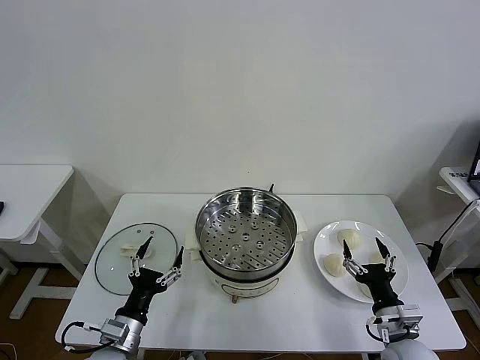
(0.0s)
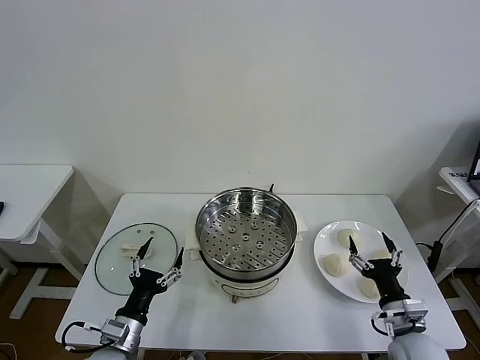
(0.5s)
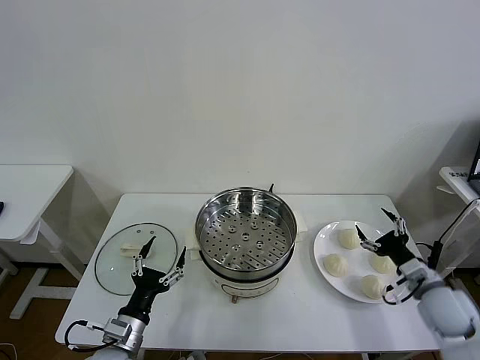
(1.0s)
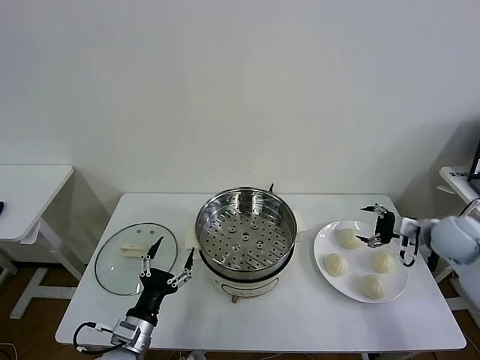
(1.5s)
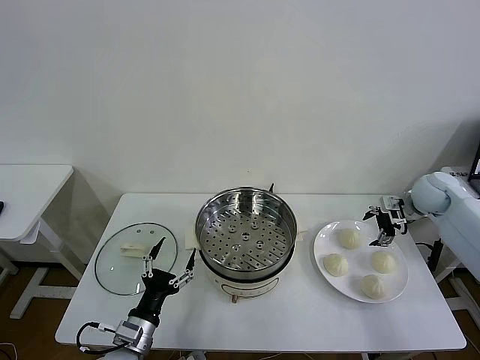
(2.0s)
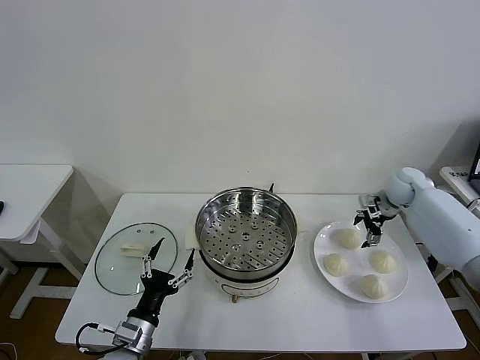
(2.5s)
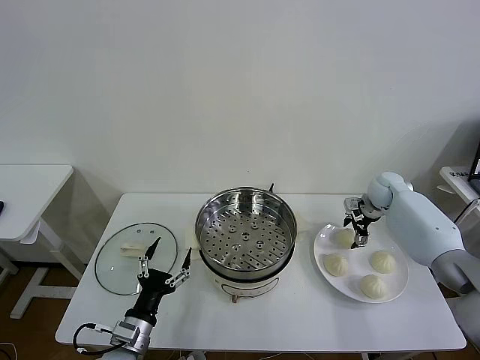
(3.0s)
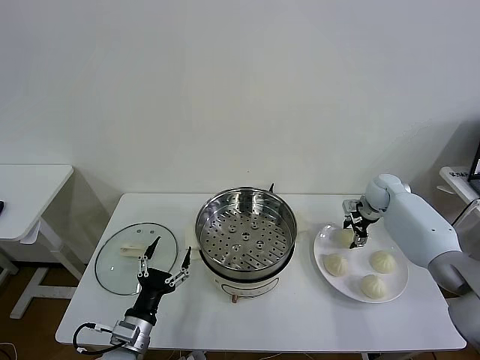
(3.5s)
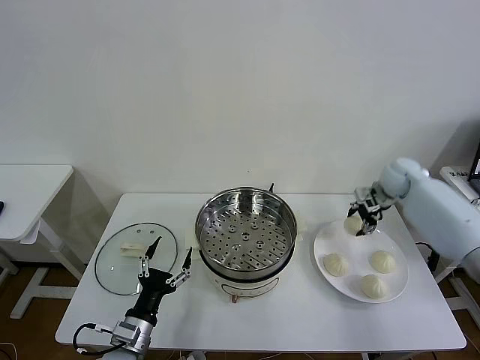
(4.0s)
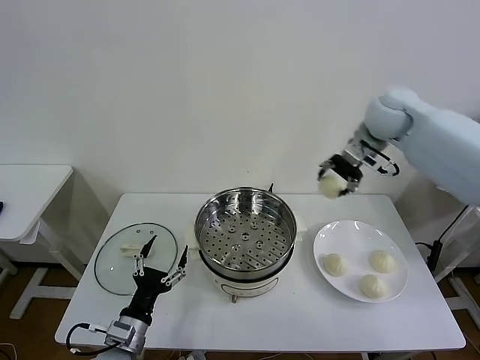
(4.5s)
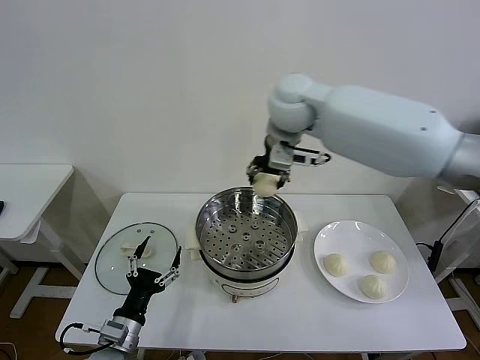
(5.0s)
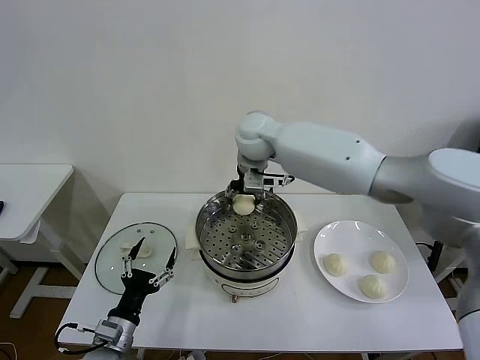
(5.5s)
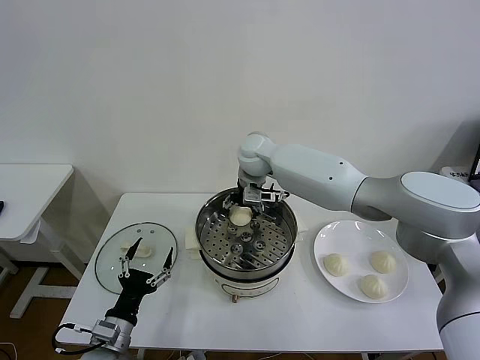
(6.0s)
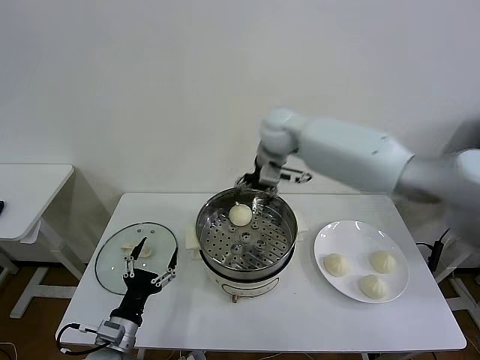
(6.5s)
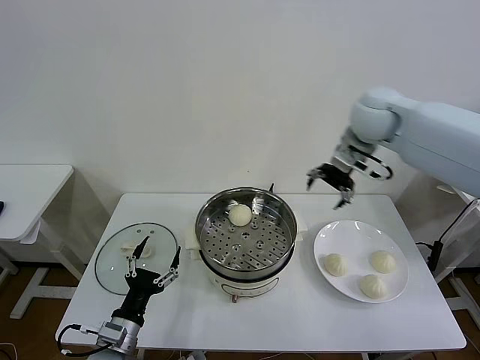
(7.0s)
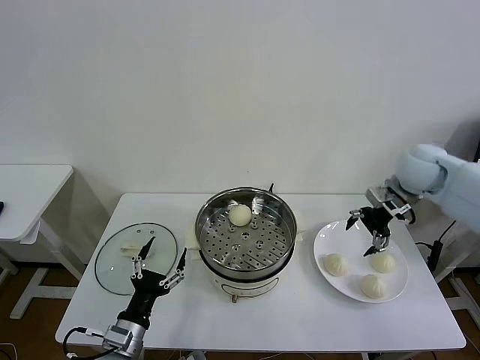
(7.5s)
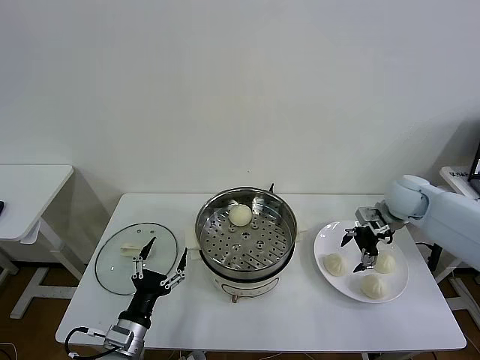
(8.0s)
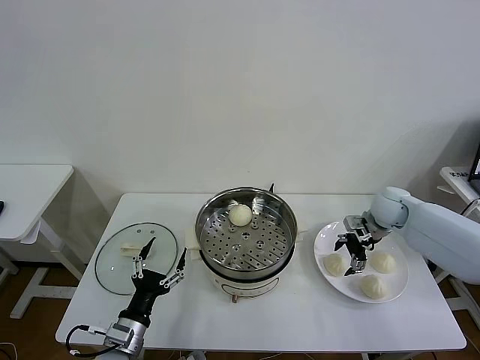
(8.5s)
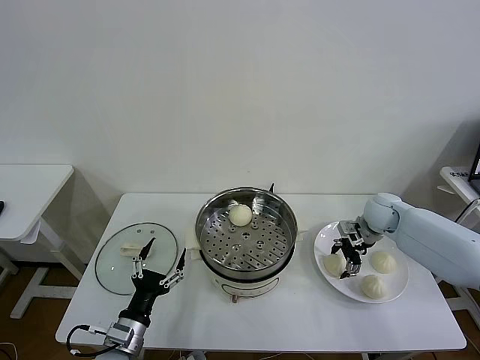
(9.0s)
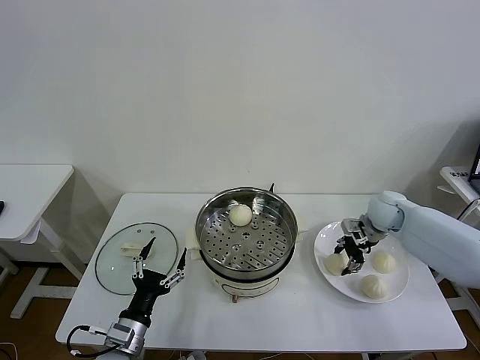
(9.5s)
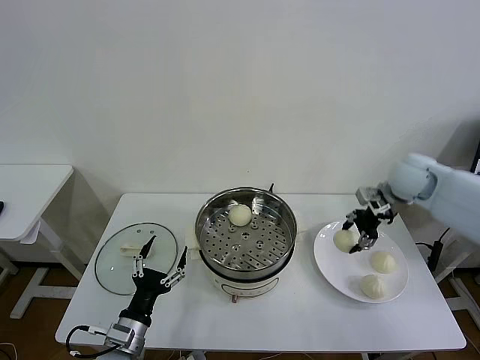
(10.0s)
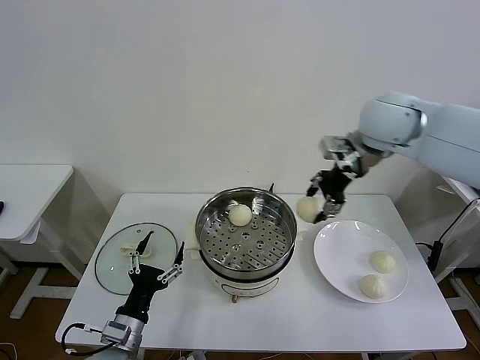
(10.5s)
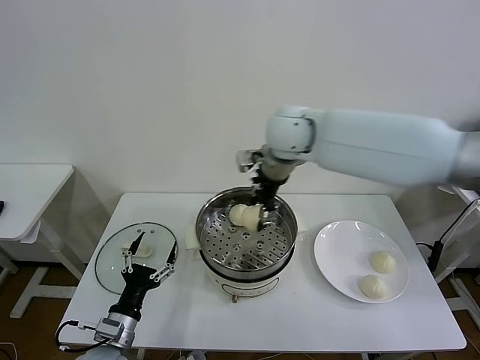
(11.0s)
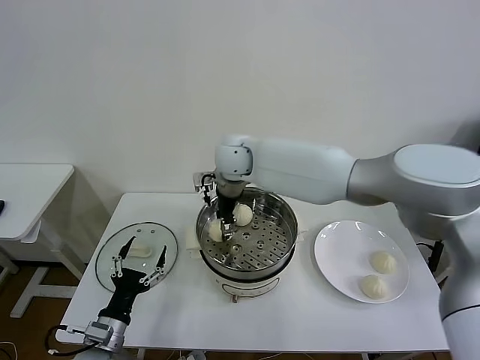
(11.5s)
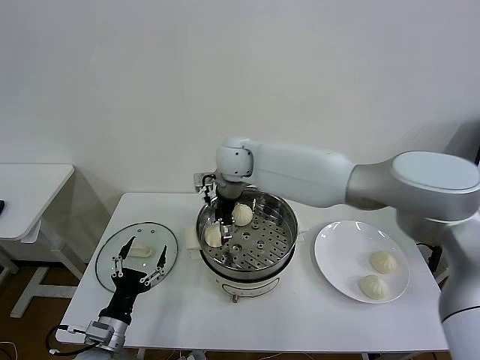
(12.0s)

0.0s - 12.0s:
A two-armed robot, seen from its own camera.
Task of the whole recording: take steamed baozi put them in steamer then cover it.
Step, 0.0s - 3.5s: Grasp the baozi in the plate with right gripper.
Step, 4.0s - 6.0s: Place the baozi on the steamer with right gripper.
Step, 6.5s - 9.0s: Grasp the baozi in the plate with right gripper.
Step, 9.5s - 11.5s: Place the baozi on the steamer with right gripper.
2.0s - 4.0s: The right gripper goes some 5 cm forward, reaches roughly 5 cm downward, then returns, and closes.
4.0s - 6.0s: The right gripper moves to the left, some 35 cm, and opens its fingers.
6.0s - 8.0s: The right gripper shifts roughly 35 cm to the right.
8.0s - 10.0s: The right gripper moves upward, approximately 5 cm, and closes.
10.0s - 12.0s: The right gripper goes roughly 40 cm to the left, and opens up.

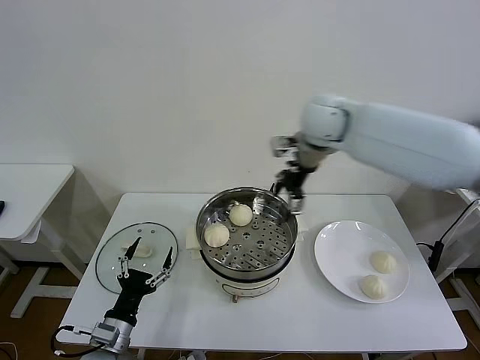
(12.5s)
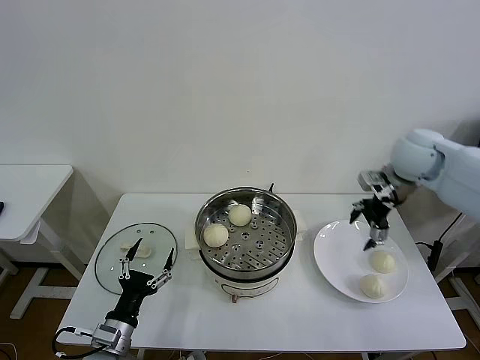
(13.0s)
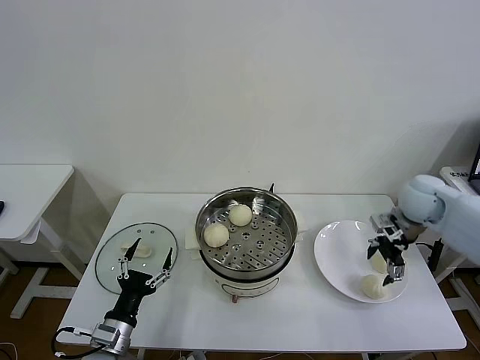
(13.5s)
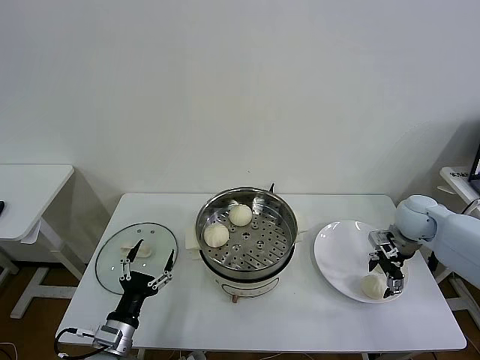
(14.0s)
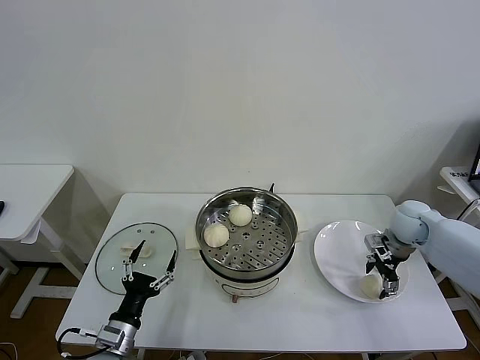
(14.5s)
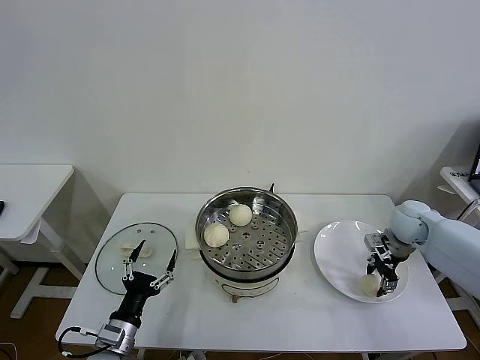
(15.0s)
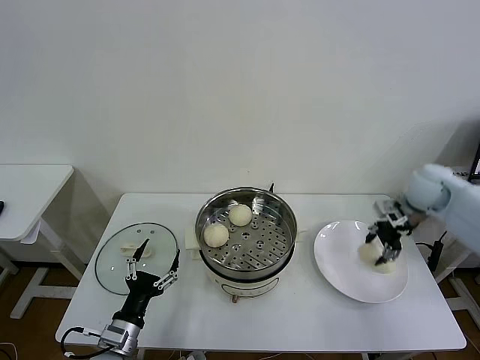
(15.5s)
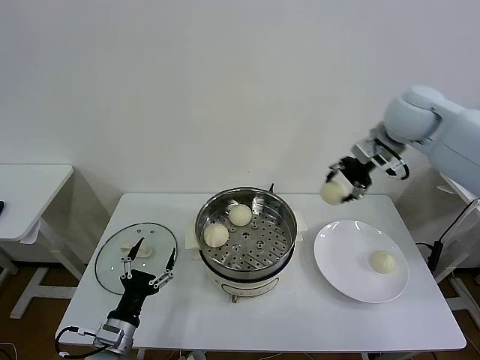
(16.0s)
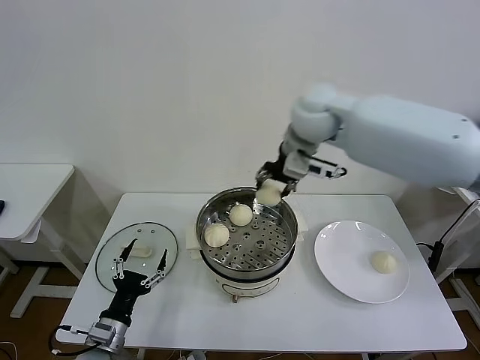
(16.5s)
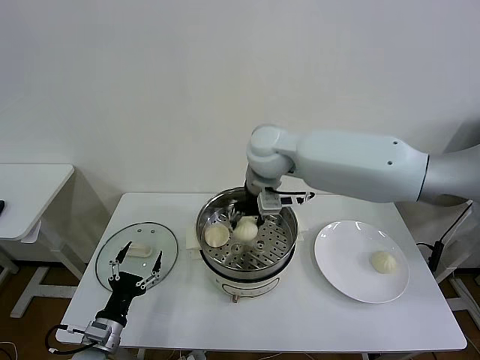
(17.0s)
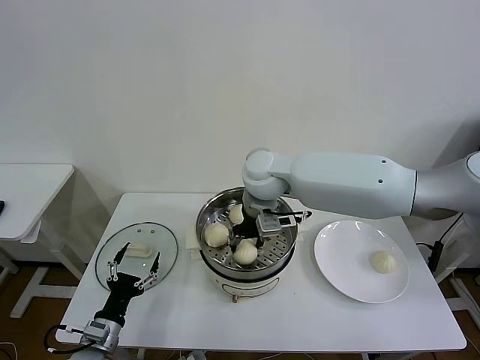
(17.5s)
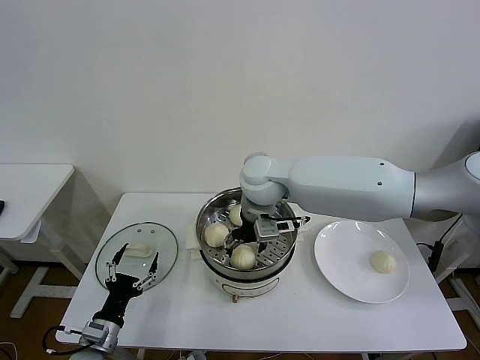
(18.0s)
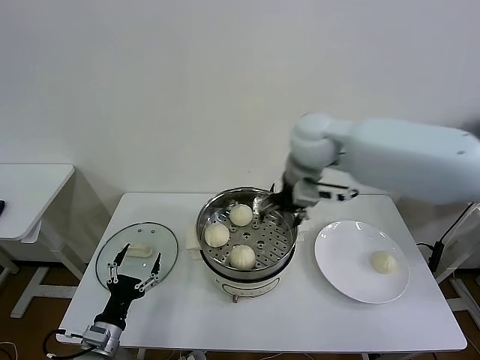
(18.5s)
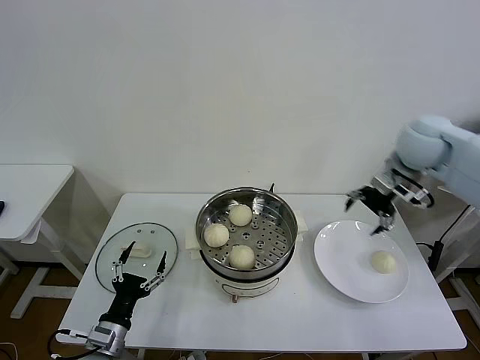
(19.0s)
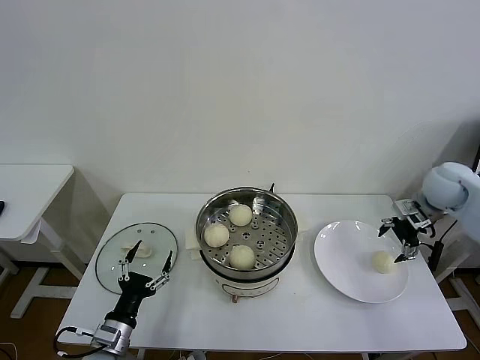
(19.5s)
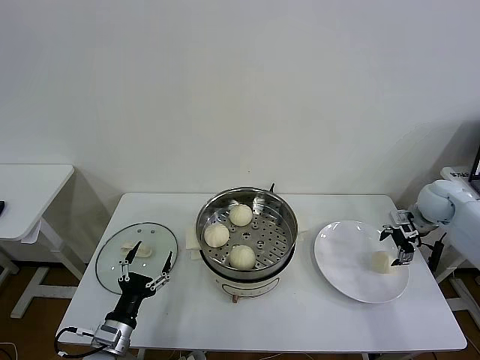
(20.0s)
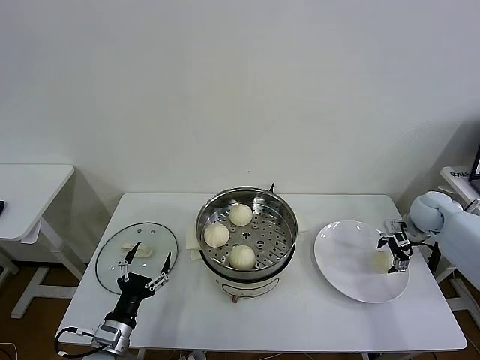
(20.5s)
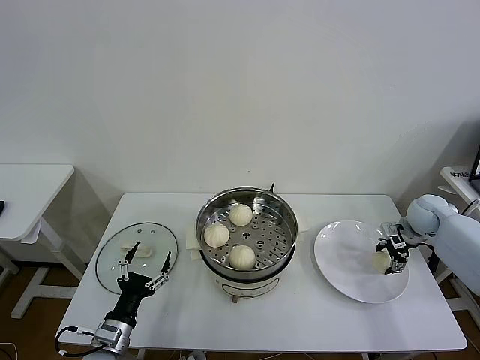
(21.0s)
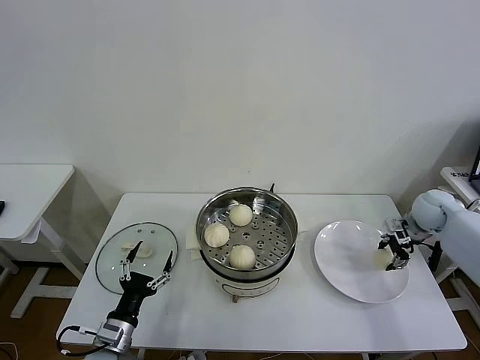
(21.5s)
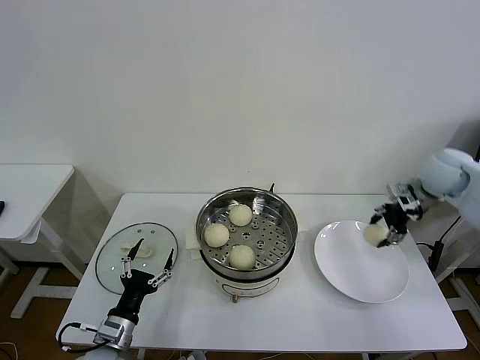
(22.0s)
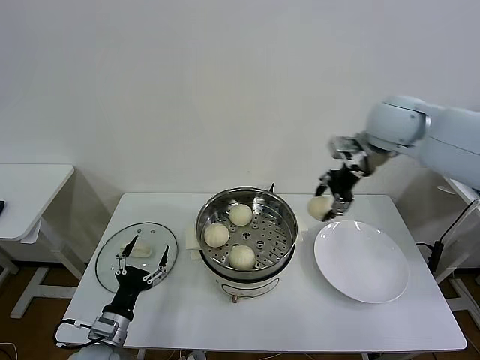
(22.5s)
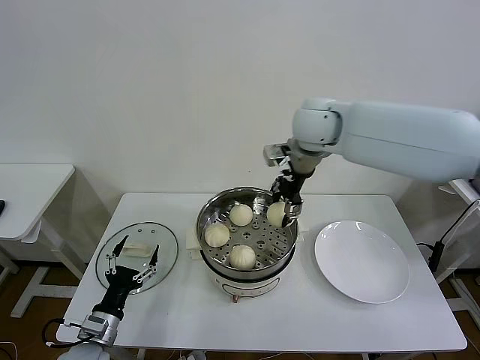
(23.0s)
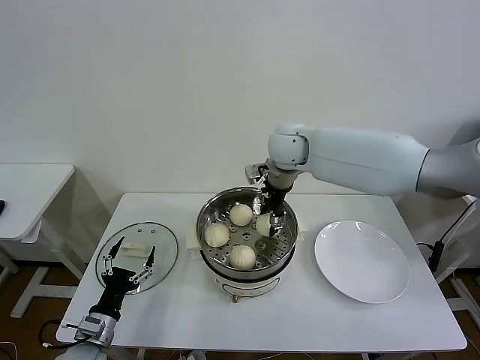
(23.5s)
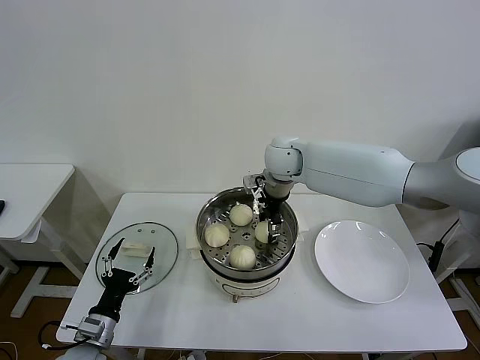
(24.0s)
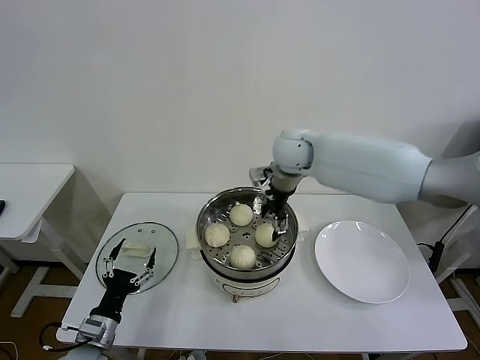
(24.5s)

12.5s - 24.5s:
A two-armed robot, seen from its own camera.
Task of the whole recording: take steamed baozi put them in steamer then cover it.
Step, 12.5s - 14.5s: Grasp the baozi in the plate with right gripper.
Step, 15.0s - 17.5s: Place the baozi on the steamer with right gripper.
Step, 18.5s - 21.0s: Grasp the baozi in the plate with right gripper.
Step, 21.5s - 24.0s: Place the baozi on the steamer with right gripper.
12.5s - 14.5s: The right gripper heads to the right and downward, covering approximately 35 cm.
14.5s - 16.5s: The right gripper is displaced to the left and upward by some 35 cm, and closes up.
16.5s - 18.5s: The right gripper opens.
18.5s - 20.5s: The right gripper travels to the right and downward by about 40 cm.
20.5s - 22.5s: The right gripper heads upward and to the left, covering roughly 30 cm, and closes up.
22.5s - 24.5s: The right gripper goes some 20 cm to the left and downward, and opens.

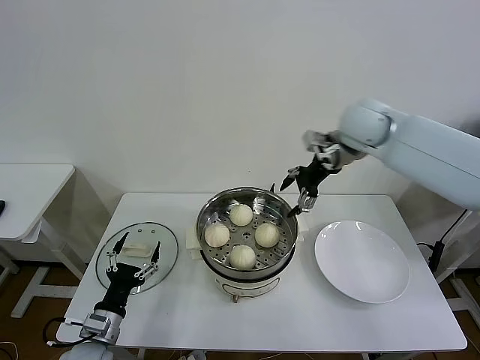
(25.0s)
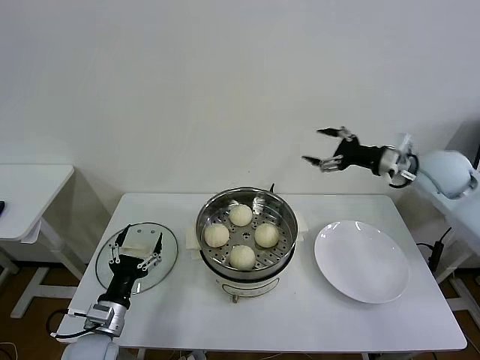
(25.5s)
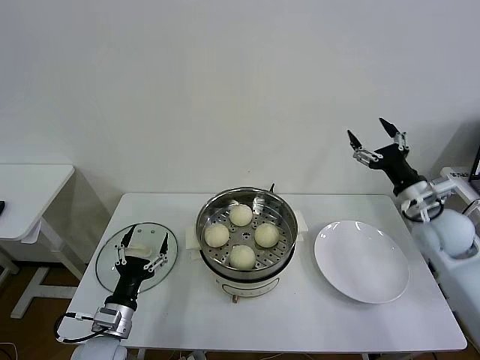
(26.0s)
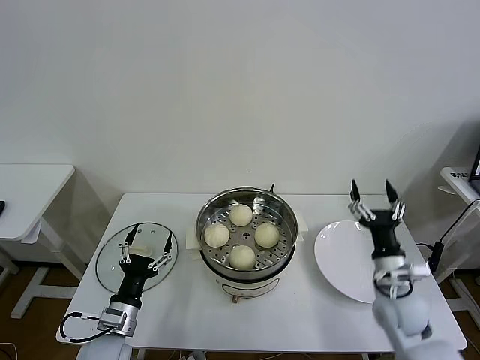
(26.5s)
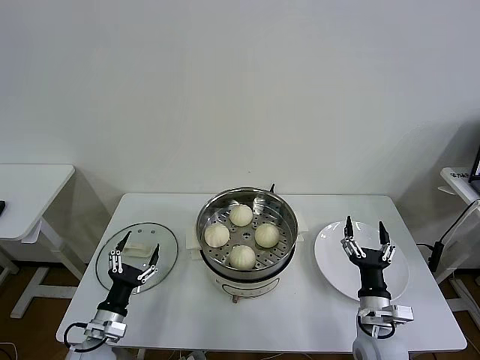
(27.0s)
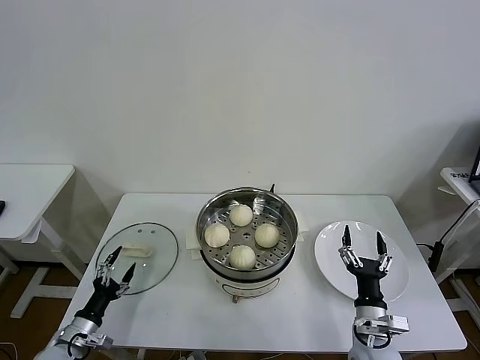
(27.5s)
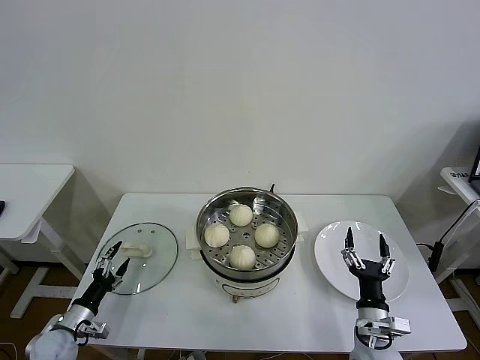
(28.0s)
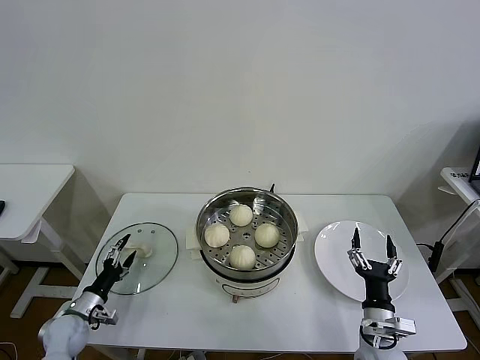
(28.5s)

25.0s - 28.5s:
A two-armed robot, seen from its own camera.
Task of the whole recording: take steamed baozi put them in steamer then cover it.
25.0s - 27.0s: The right gripper is displaced downward and backward by about 50 cm.
27.0s - 28.5s: The left gripper travels to the left, downward and forward by roughly 15 cm.
